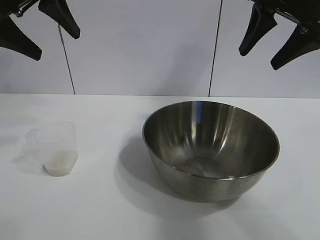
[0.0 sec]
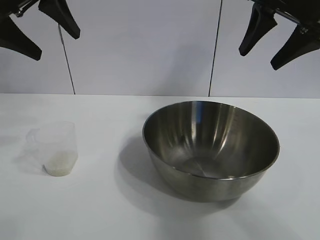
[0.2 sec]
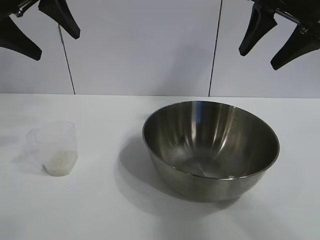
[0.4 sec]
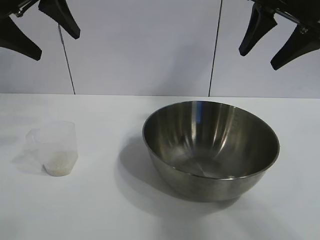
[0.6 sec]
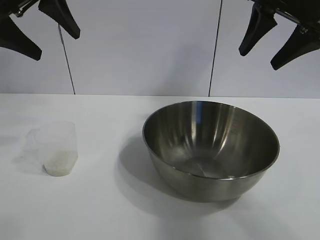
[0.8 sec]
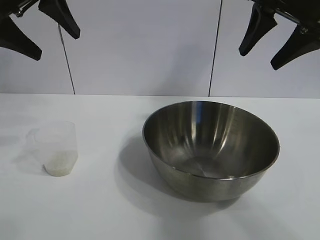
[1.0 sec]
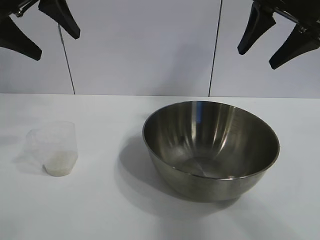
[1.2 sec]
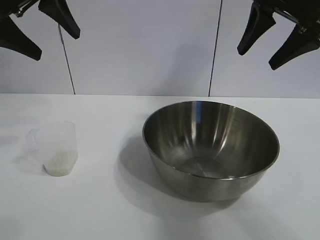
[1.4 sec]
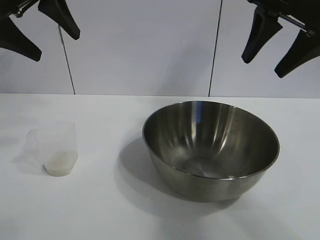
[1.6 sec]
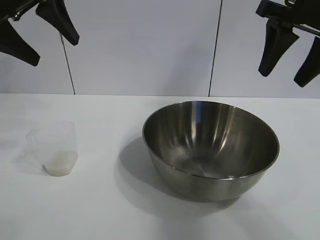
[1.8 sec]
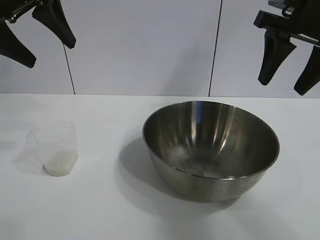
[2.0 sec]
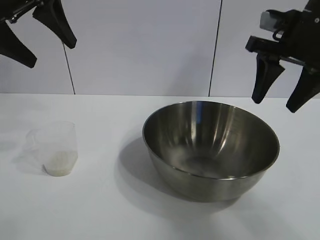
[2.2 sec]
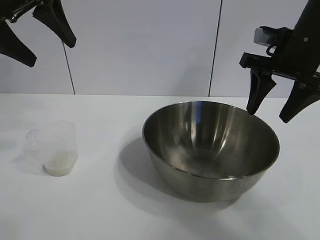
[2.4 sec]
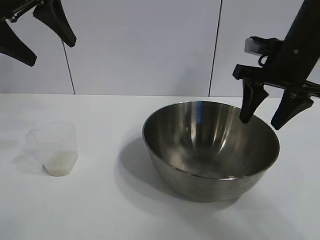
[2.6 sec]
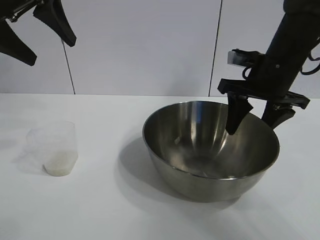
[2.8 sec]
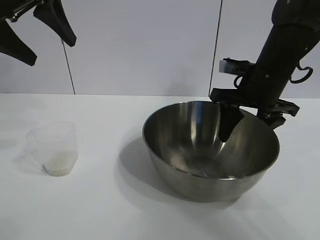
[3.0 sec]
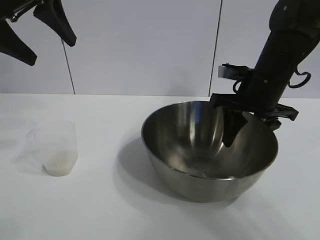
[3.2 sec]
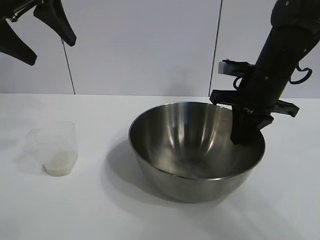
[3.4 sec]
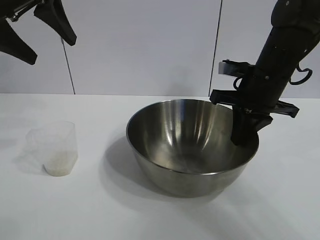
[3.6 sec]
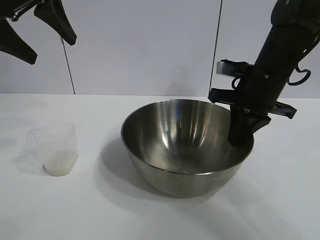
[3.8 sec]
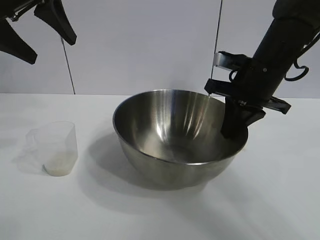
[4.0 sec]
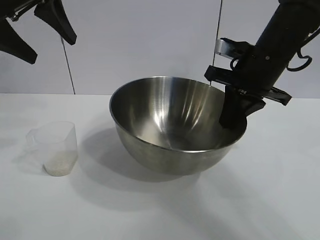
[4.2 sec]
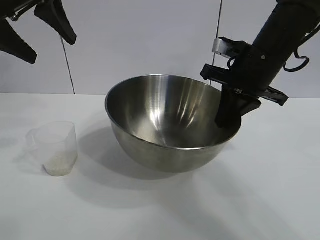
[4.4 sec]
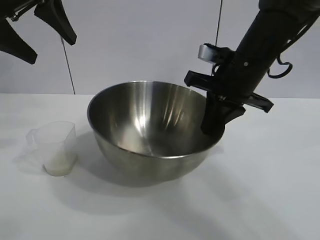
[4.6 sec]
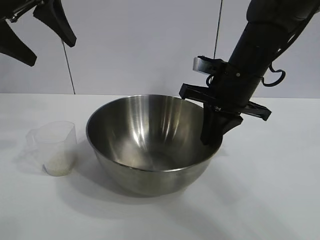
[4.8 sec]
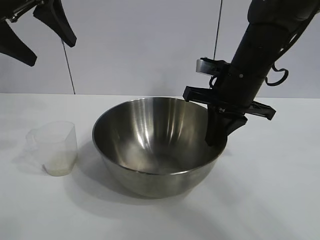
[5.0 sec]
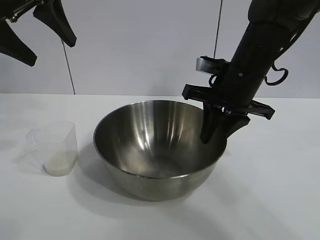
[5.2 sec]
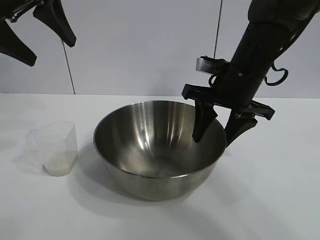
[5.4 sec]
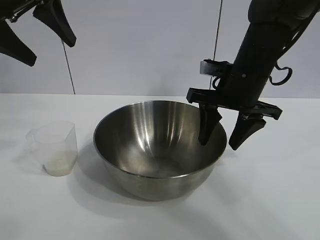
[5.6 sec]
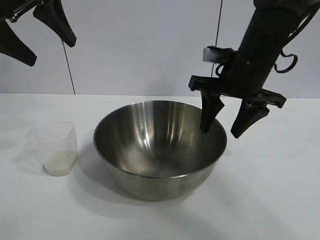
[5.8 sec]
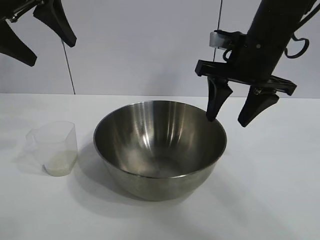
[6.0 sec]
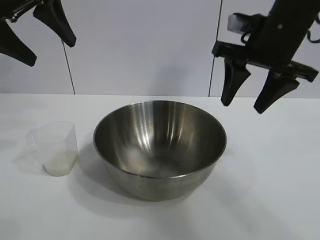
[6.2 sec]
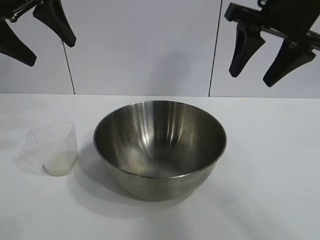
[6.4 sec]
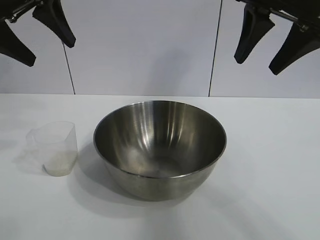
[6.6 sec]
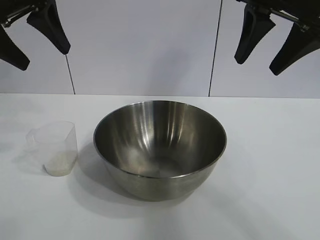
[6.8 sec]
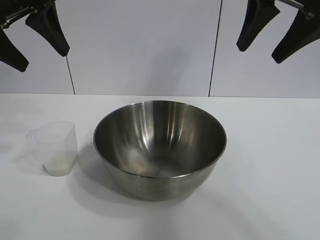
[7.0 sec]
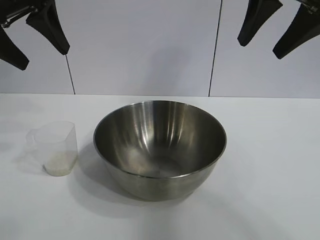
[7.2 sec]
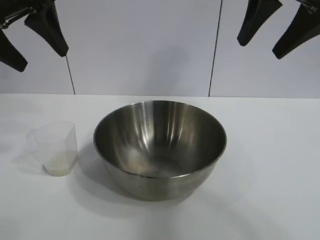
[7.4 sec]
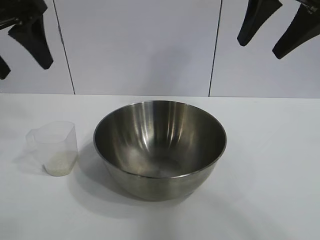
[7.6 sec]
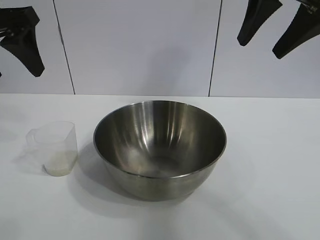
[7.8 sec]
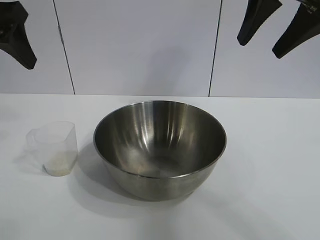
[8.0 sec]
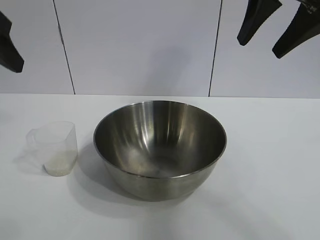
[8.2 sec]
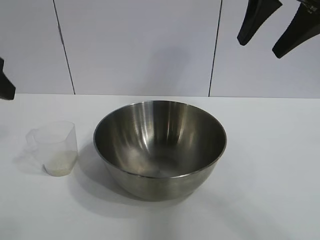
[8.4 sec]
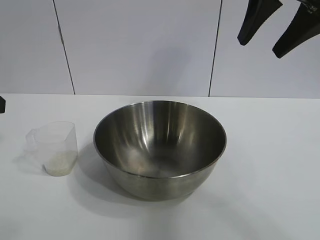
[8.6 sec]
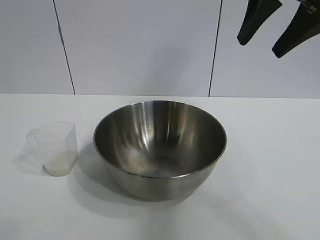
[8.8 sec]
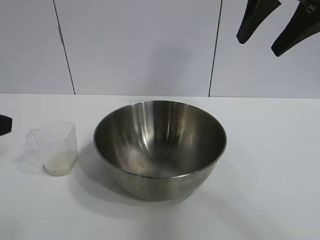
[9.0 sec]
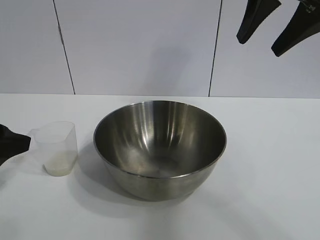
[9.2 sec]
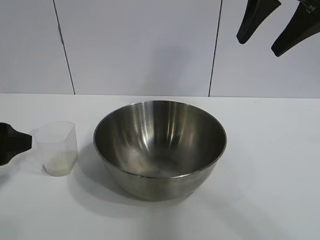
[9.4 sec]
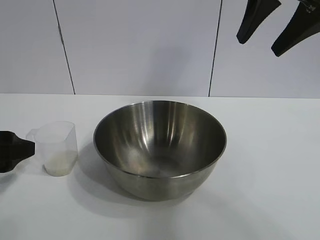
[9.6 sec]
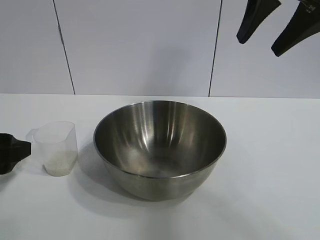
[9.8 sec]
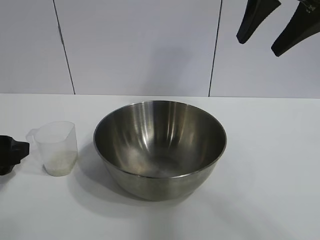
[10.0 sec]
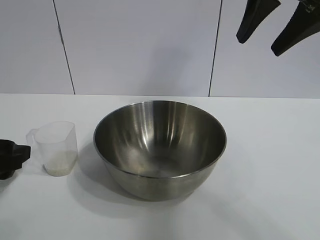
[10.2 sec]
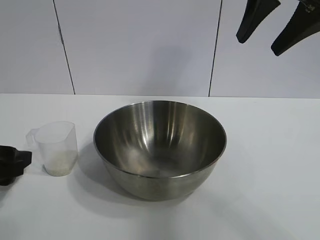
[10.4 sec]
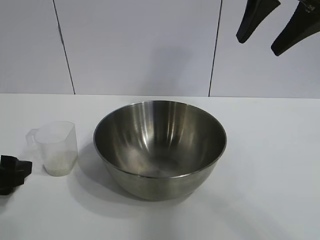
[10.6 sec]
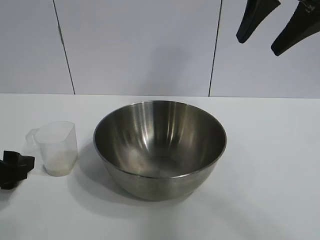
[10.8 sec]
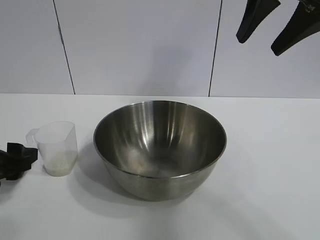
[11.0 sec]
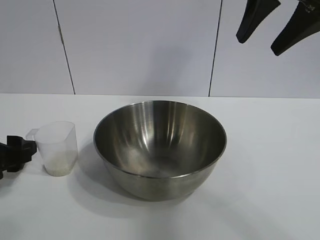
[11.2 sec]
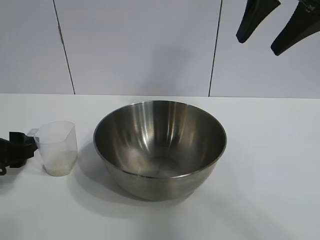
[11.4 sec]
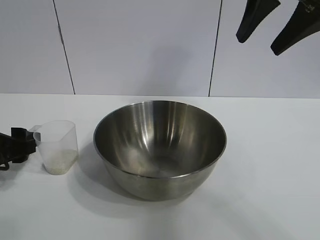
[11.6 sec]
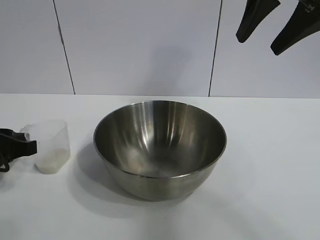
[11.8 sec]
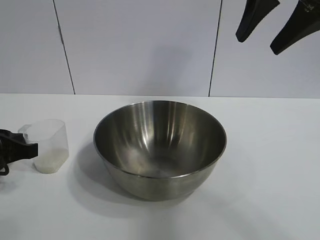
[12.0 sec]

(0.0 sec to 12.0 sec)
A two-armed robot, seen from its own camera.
Task of the whole recording: the right gripper grasp the rice container and place it in the center of the table, the left gripper grasp the rice scoop and pour the rice into the rice container.
Step, 1.2 sec - 5.2 sec: Move the bowl in the center of view with right gripper.

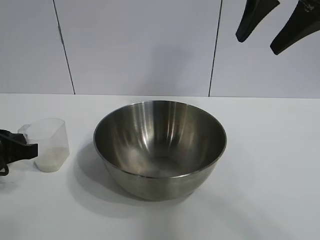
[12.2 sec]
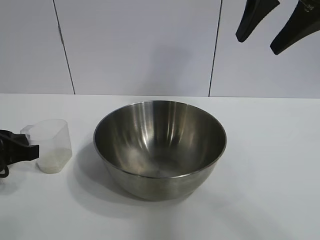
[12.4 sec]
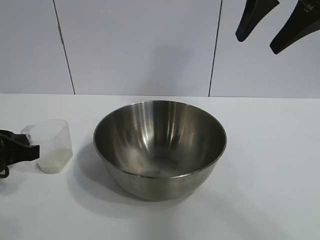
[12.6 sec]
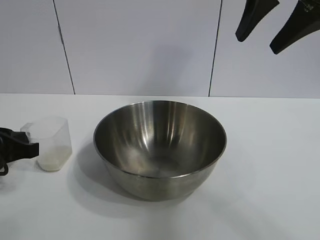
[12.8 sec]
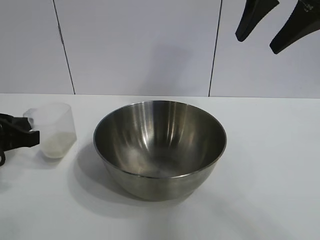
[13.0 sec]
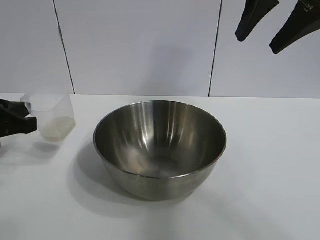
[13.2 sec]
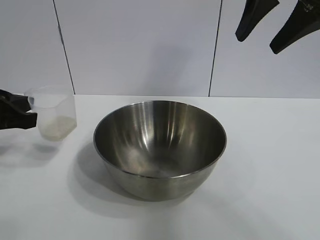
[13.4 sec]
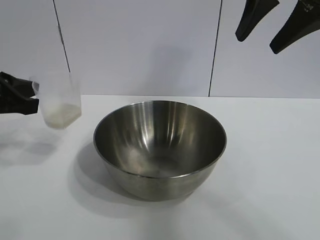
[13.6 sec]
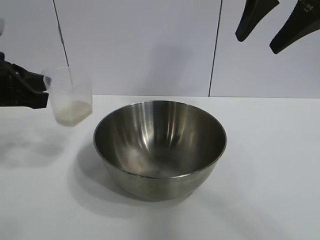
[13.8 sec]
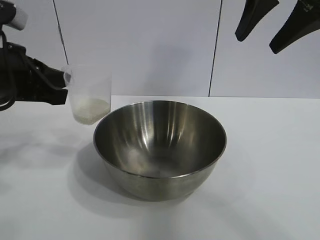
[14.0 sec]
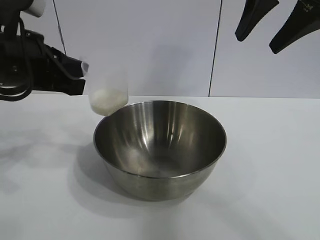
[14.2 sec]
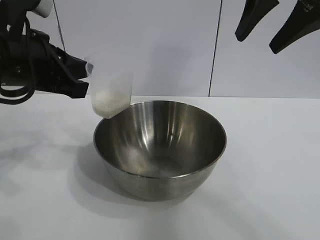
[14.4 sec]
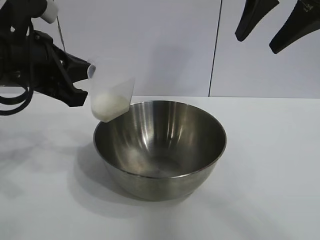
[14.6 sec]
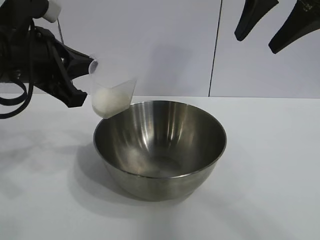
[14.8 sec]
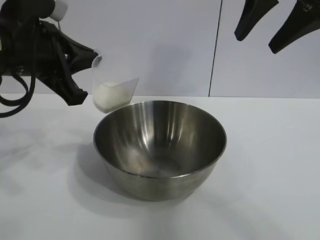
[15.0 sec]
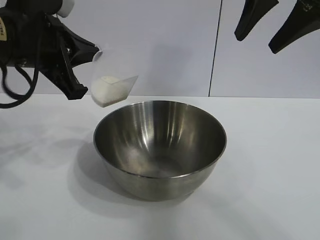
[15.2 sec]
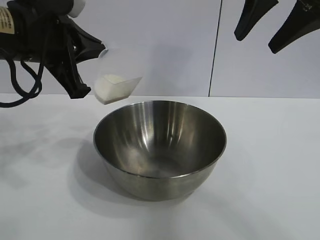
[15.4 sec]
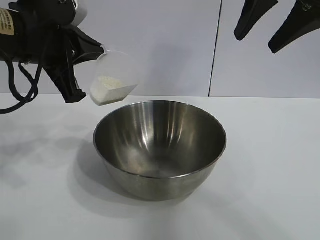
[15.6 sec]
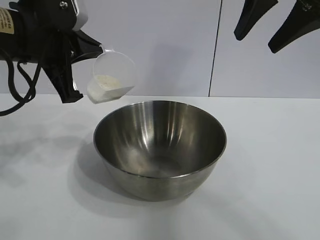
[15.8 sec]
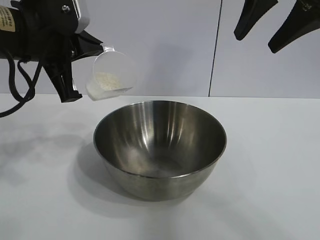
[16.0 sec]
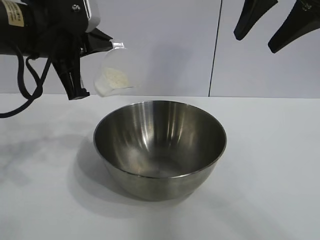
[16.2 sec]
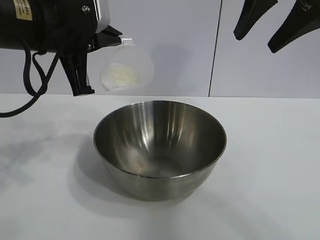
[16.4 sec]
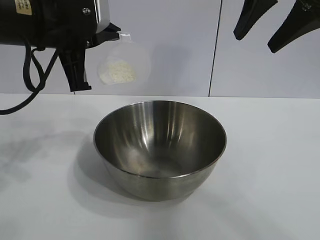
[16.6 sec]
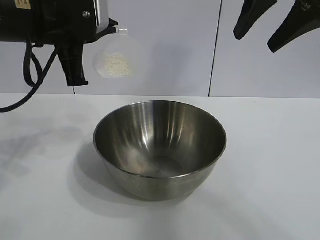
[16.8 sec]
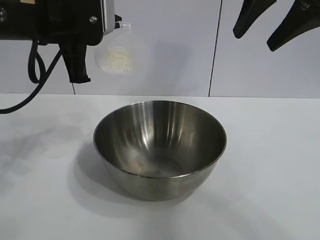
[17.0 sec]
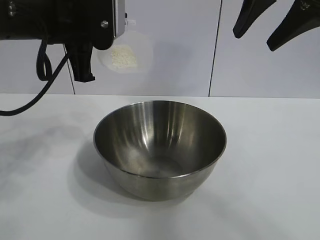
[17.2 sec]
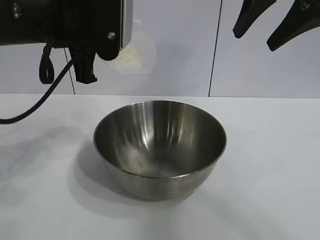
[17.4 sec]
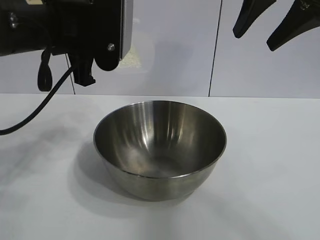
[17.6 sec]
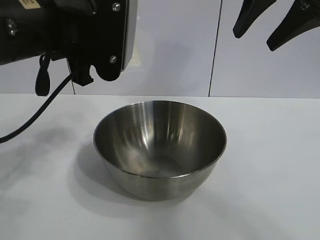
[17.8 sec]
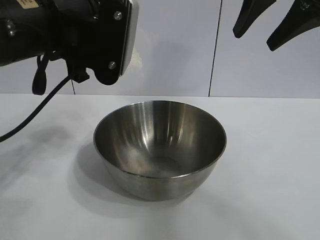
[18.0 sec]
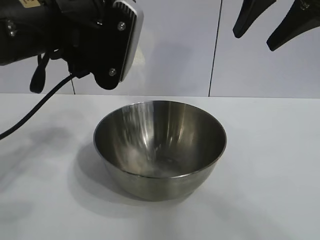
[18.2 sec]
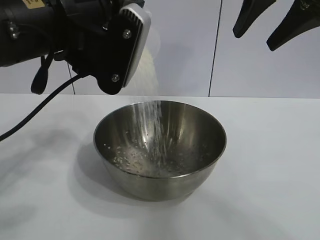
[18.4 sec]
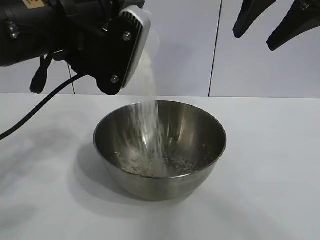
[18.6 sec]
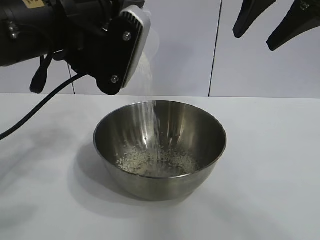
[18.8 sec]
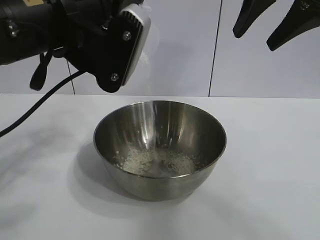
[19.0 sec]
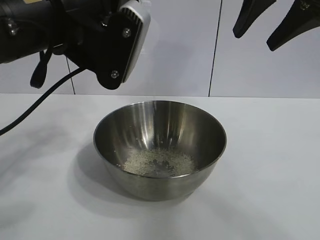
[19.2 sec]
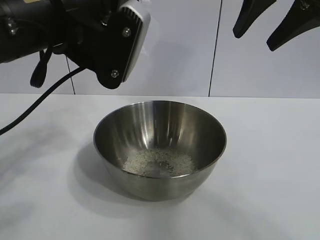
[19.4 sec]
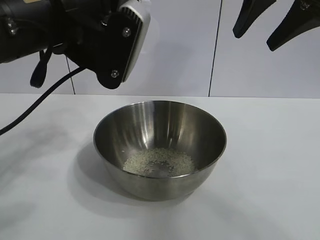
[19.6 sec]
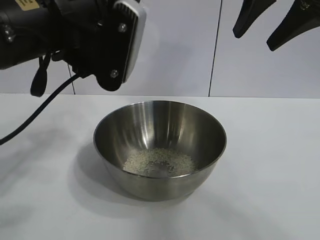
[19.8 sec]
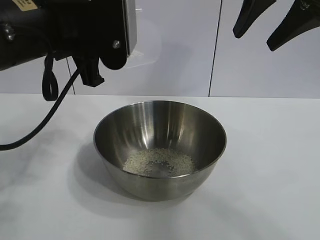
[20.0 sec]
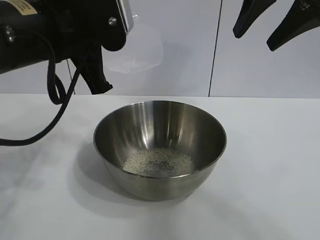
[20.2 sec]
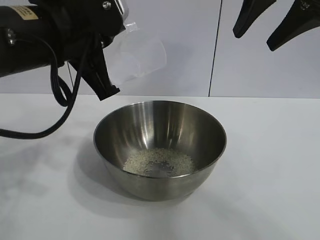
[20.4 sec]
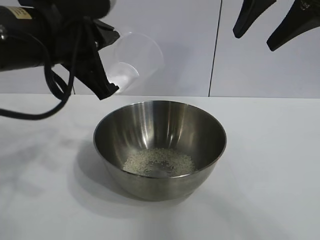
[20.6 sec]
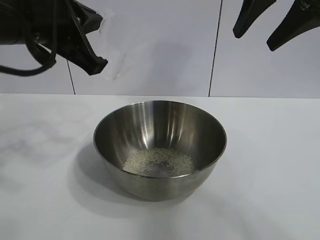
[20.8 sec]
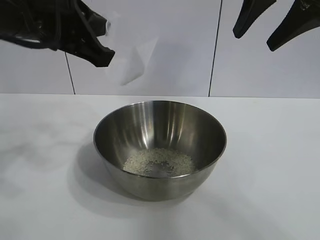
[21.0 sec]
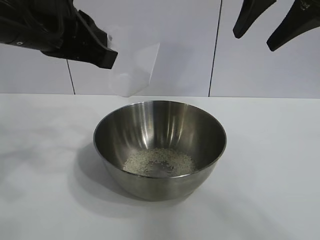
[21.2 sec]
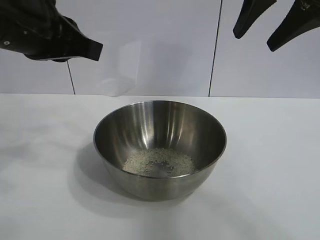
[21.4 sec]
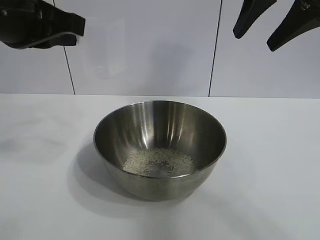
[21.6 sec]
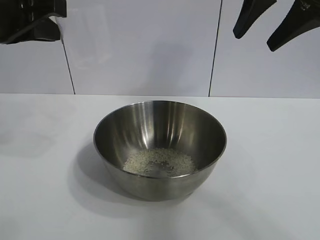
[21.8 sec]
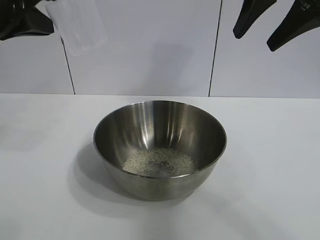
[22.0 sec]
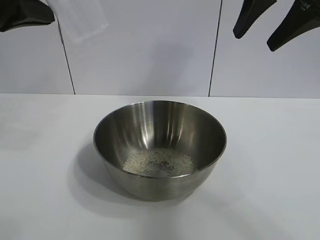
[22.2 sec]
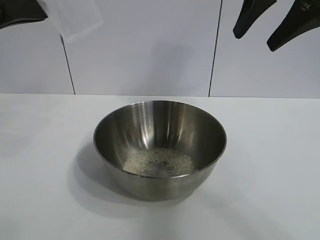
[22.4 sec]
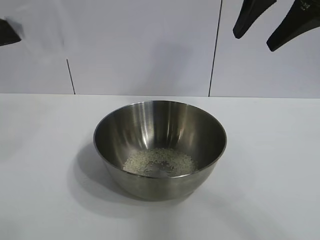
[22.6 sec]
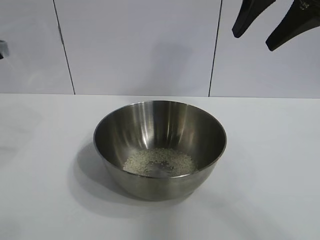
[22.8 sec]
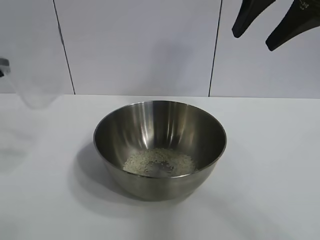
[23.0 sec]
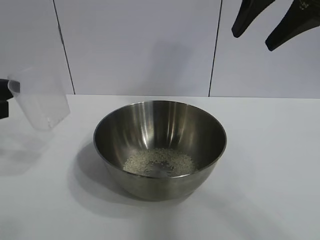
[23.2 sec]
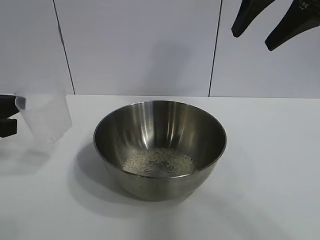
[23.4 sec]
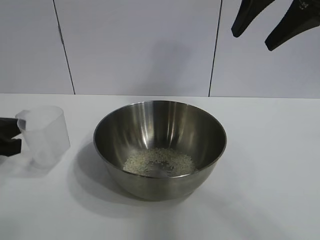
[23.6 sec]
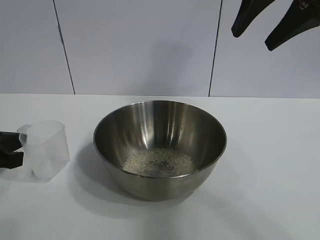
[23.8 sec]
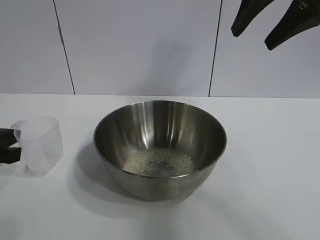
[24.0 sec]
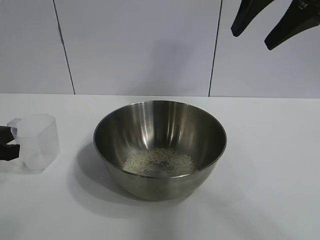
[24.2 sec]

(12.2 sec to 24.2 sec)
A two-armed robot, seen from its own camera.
Task of the whole recording: the right gripper grasp the rice container and place it in the center of the table, the left gripper grasp the rice scoop and pour the rice into the rice container.
Step, 12.2 sec - 19.4 sec: Pour the rice from the cup into the bowl with the left gripper.
